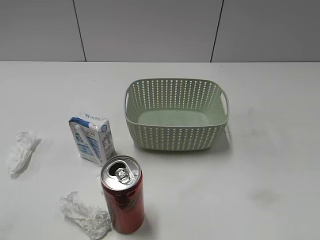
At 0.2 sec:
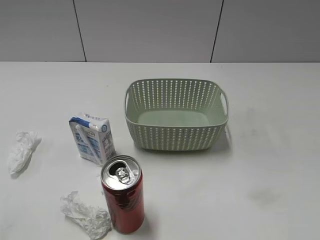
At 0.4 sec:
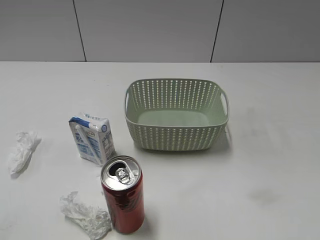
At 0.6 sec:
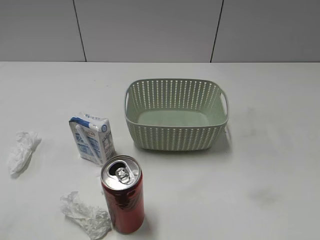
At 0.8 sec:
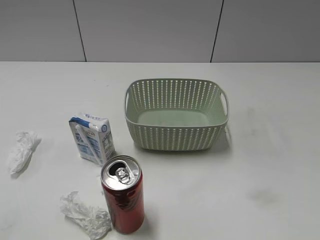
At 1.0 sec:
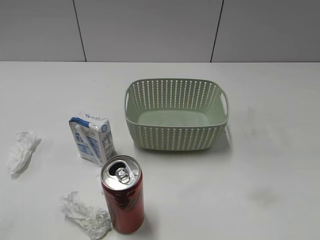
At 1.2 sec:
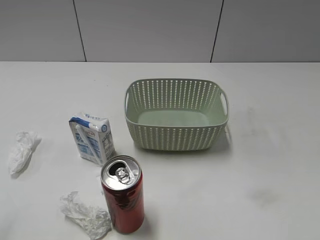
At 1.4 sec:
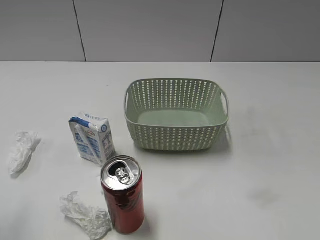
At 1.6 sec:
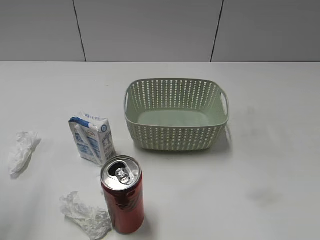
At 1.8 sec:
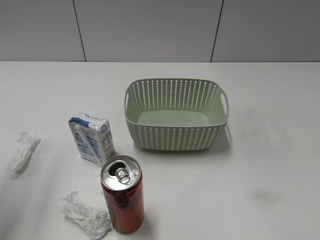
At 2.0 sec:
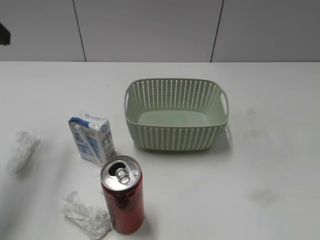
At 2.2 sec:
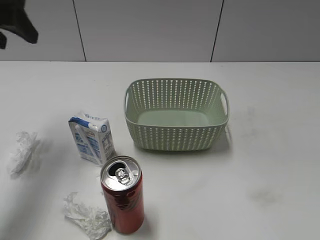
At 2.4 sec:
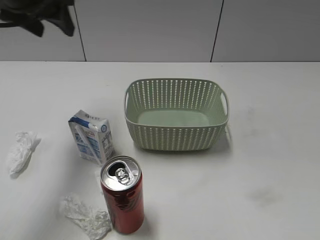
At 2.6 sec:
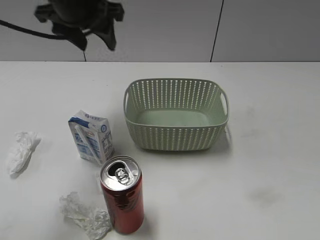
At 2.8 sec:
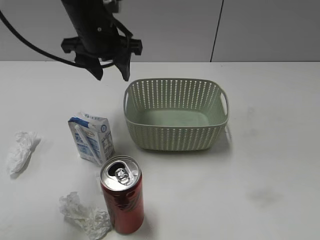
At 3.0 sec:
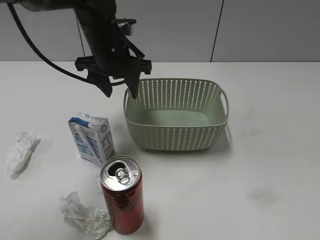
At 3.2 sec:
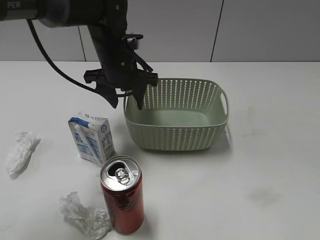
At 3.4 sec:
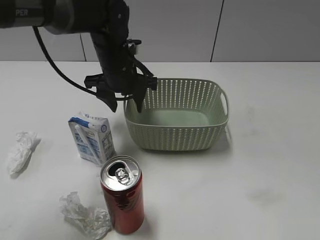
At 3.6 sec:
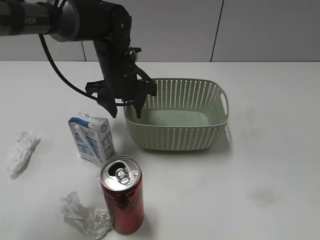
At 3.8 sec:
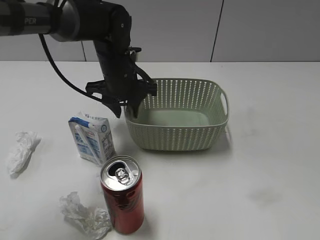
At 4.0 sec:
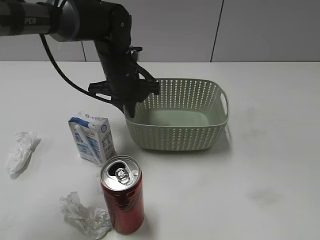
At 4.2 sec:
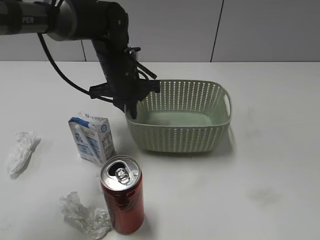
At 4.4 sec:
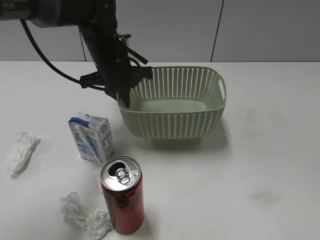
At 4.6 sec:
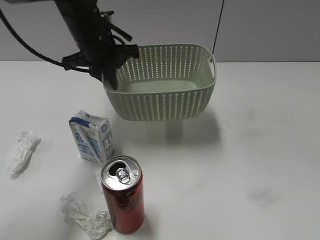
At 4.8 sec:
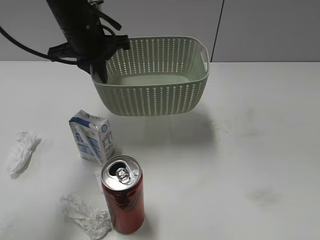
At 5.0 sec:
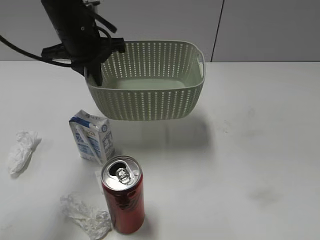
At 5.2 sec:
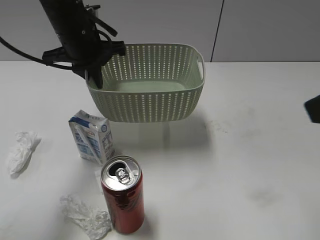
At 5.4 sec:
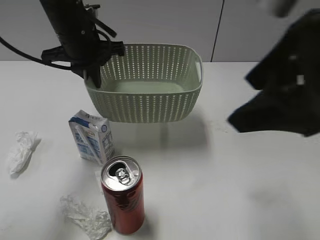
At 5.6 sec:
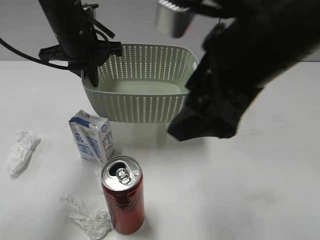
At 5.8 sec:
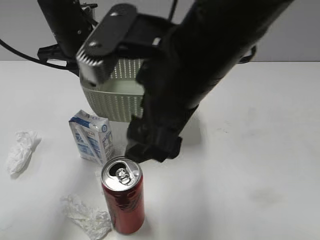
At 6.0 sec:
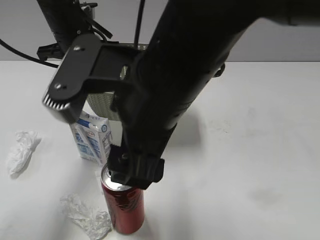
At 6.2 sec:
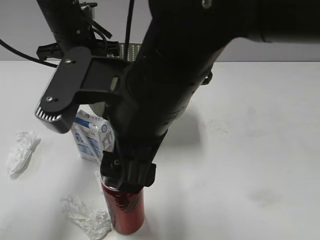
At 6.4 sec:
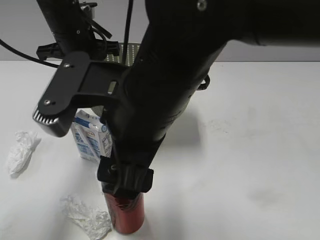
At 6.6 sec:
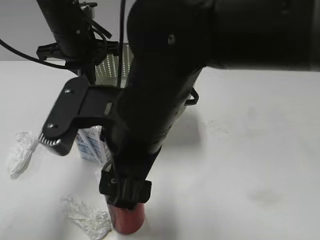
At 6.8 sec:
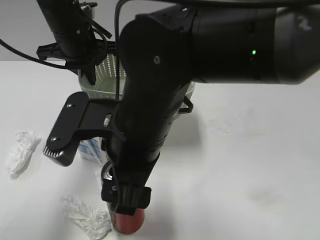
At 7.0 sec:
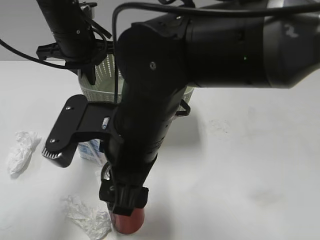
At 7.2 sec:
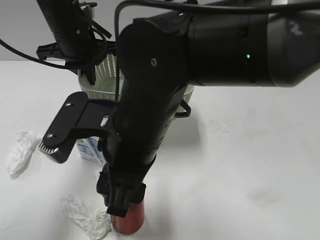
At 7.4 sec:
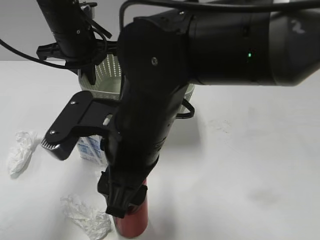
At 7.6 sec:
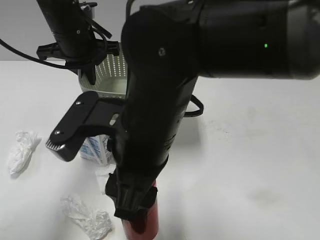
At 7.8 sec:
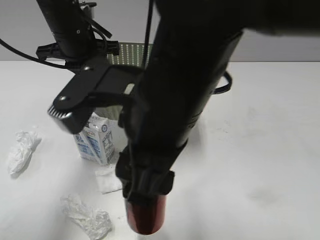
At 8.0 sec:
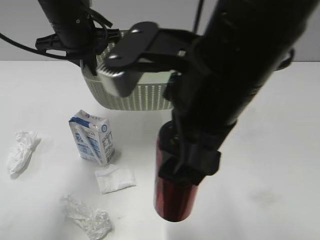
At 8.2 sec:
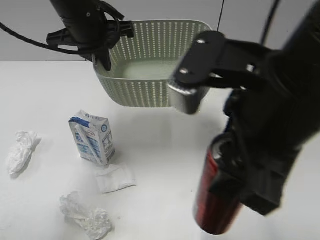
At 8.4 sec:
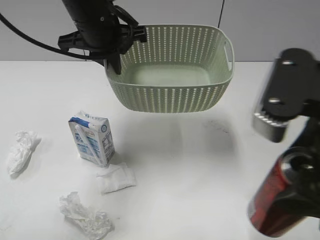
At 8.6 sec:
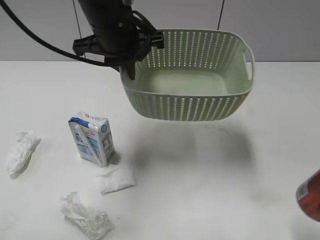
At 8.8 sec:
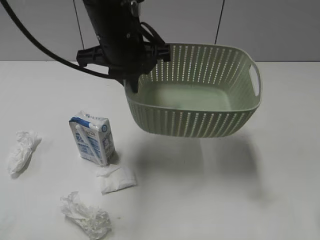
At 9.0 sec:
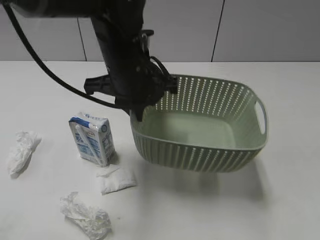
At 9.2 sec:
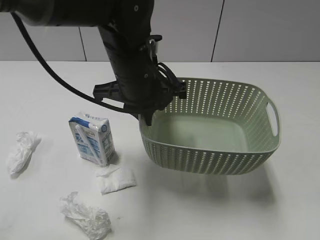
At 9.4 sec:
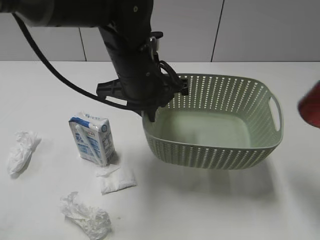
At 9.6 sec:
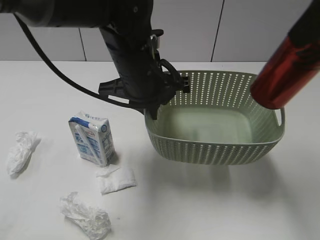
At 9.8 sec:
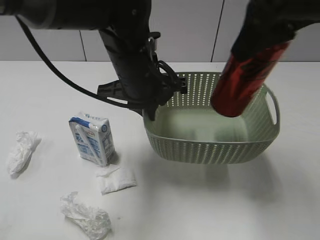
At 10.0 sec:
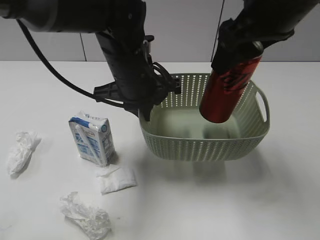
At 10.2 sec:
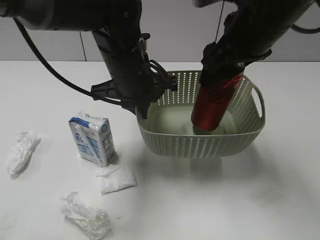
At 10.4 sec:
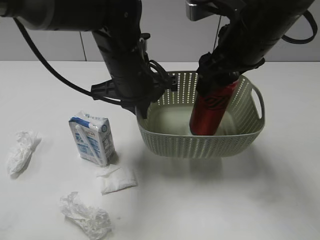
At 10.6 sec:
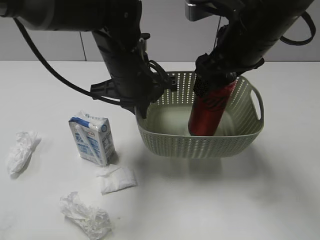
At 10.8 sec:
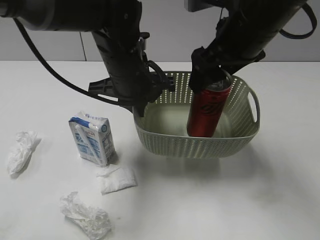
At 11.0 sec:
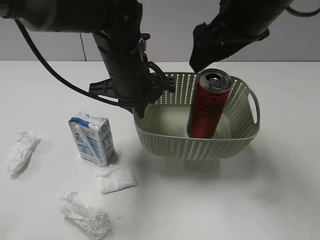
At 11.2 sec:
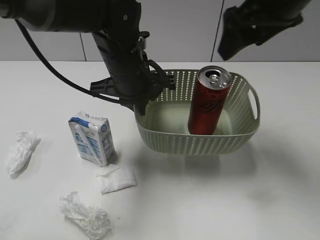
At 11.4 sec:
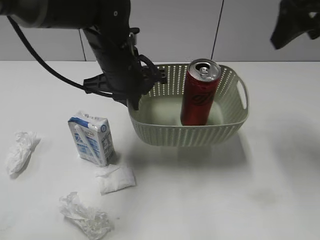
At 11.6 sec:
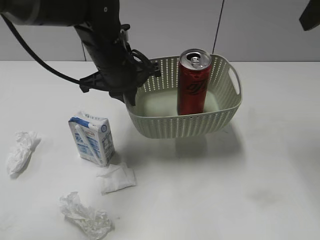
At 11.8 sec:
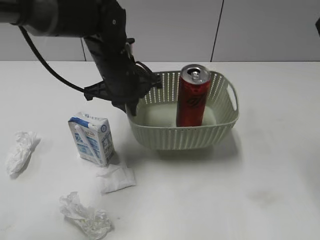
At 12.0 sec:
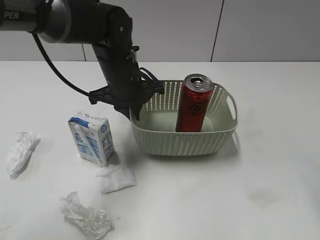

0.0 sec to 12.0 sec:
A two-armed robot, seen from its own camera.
Step, 2.0 sec to 4.0 sec: Grasp the basket with left gripper.
Step, 4.2 sec to 5.0 sec: Lift the basket with left gripper.
Step, 5.2 sec to 7.4 sec: Grasp the cola can with right gripper.
Step, 7.6 sec to 11.0 sec: Place the cola can in the basket with right gripper.
1.6 sec to 3.0 sec: The left gripper travels forward, to the right and downward by about 35 cm.
3.0 sec to 4.4 sec: The left gripper closes its fingers.
4.4 sec to 6.0 sec: The left gripper is displaced upward and to the left by roughly 10 cm; the right gripper goes some 35 cm to the left and forward, and opens.
6.0 sec to 7.6 sec: The right gripper goes approximately 5 cm downward, and closes up.
7.6 sec to 9.0 sec: The right gripper shifts roughly 25 cm to the right. Meanwhile the left gripper heads to the right and backward, covering roughly 15 cm.
9.0 sec to 10.4 sec: The right gripper heads forward and to the left, covering approximately 20 cm.
10.4 sec to 12.0 sec: The right gripper travels to the right, backward and upward by about 20 cm, and opens up. Meanwhile the left gripper ends up about 5 cm from where it was.

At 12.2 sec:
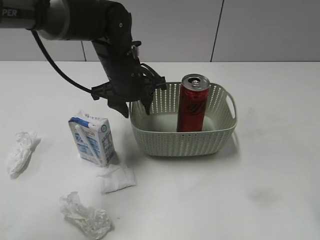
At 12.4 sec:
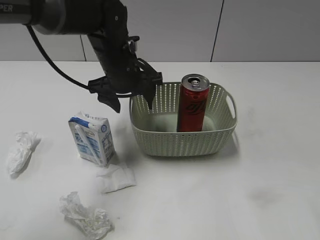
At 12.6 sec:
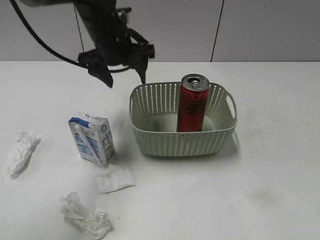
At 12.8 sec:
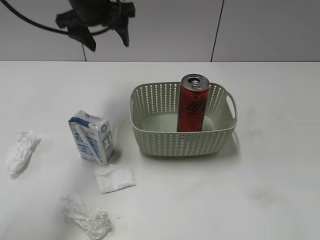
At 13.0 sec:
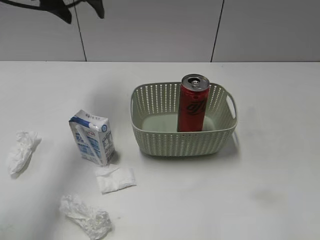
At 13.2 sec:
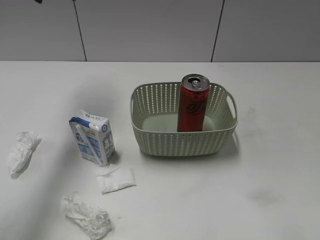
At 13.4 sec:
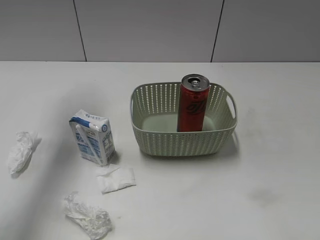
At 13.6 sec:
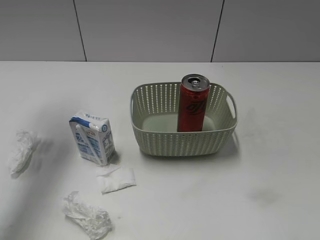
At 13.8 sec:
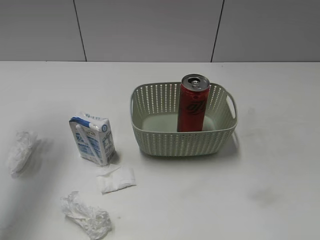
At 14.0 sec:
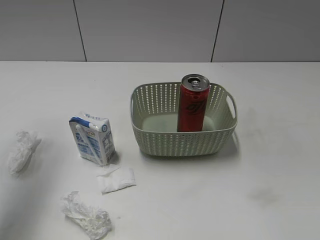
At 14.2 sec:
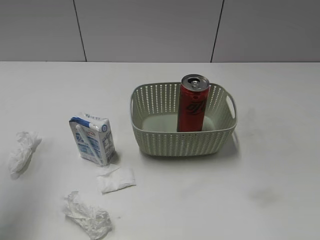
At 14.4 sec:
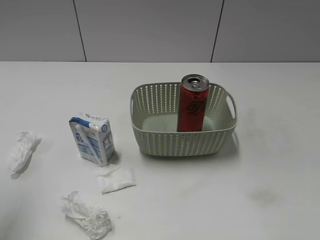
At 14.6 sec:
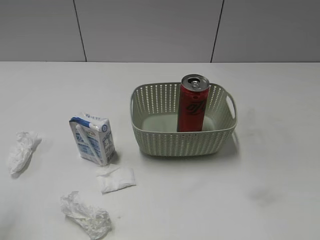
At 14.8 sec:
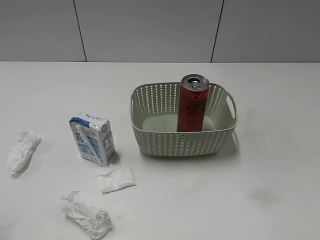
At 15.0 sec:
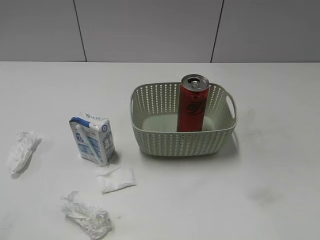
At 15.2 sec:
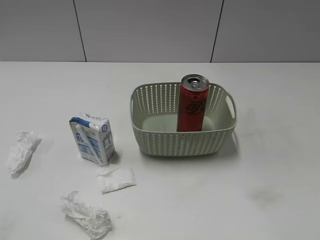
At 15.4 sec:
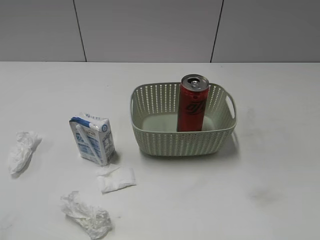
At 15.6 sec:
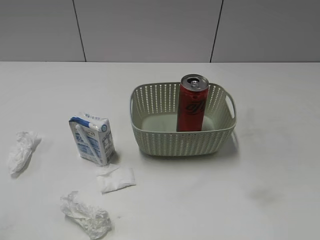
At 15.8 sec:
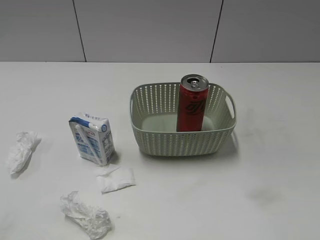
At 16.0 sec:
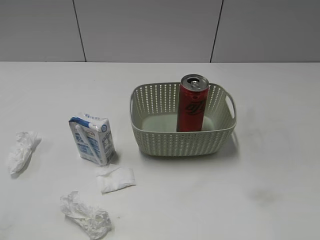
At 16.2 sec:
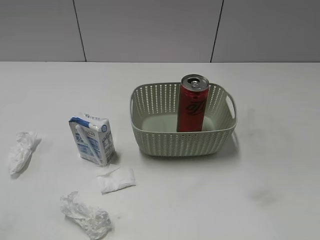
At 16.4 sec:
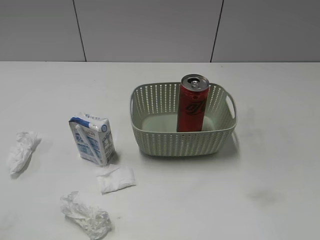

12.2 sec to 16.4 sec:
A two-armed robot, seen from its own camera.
12.2 sec to 13.6 sec: The right gripper goes roughly 15 cm backward and downward; the left gripper moves upward and to the left, about 30 cm, and opens.
13.6 sec to 15.0 sec: The left gripper shifts about 35 cm backward.

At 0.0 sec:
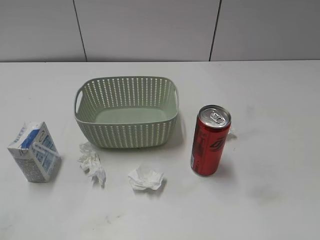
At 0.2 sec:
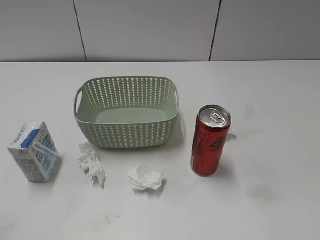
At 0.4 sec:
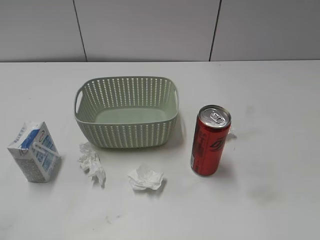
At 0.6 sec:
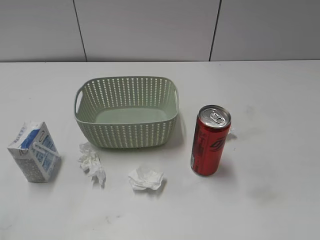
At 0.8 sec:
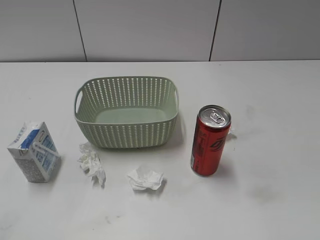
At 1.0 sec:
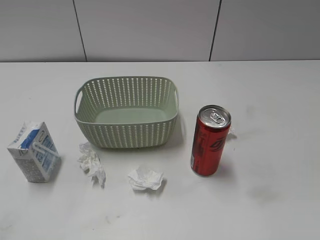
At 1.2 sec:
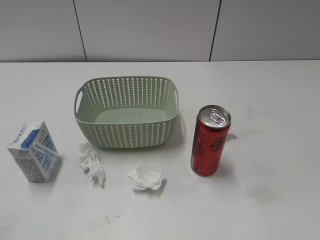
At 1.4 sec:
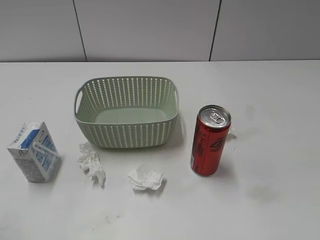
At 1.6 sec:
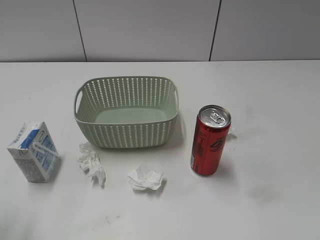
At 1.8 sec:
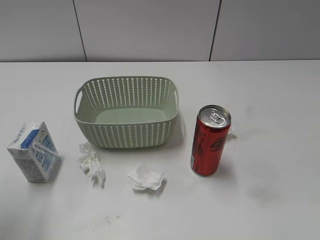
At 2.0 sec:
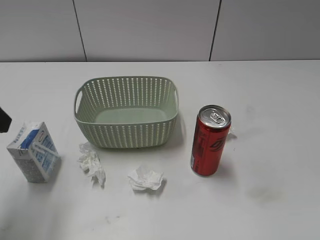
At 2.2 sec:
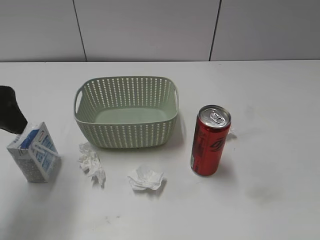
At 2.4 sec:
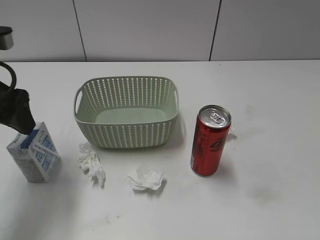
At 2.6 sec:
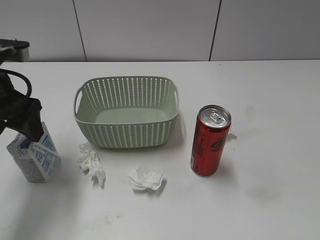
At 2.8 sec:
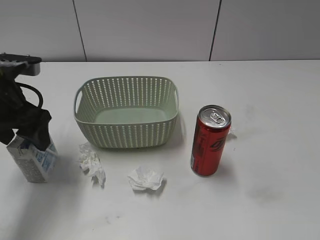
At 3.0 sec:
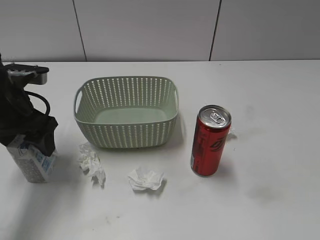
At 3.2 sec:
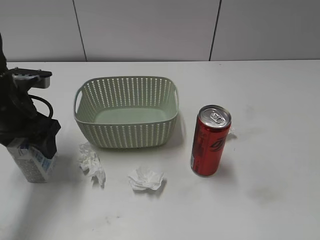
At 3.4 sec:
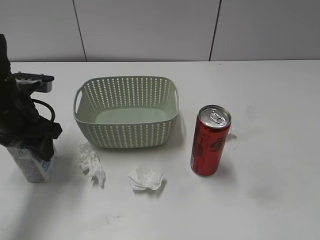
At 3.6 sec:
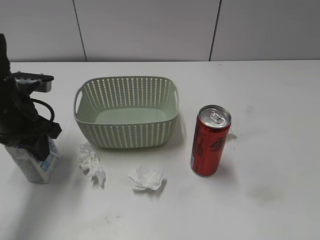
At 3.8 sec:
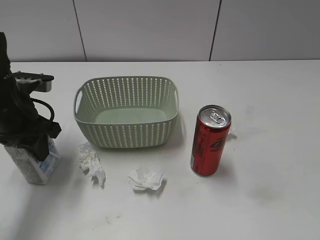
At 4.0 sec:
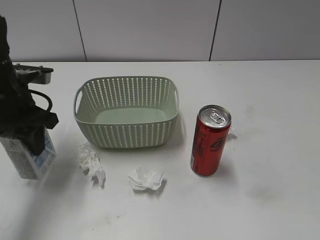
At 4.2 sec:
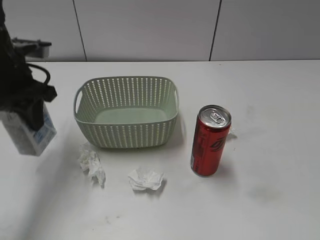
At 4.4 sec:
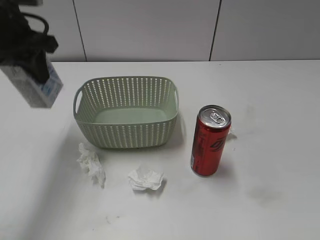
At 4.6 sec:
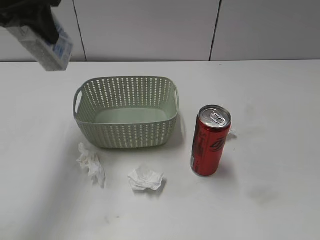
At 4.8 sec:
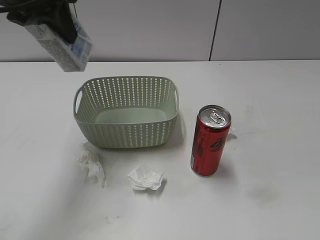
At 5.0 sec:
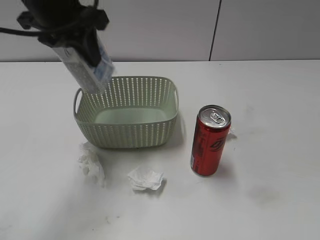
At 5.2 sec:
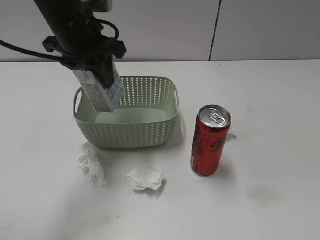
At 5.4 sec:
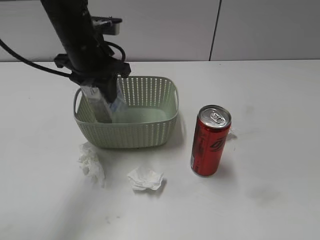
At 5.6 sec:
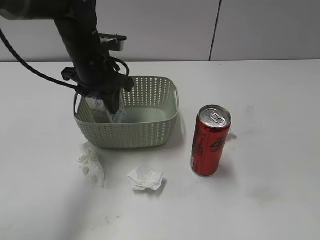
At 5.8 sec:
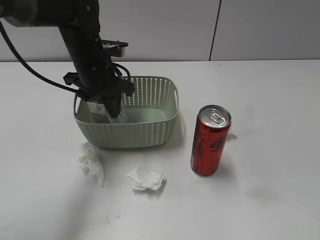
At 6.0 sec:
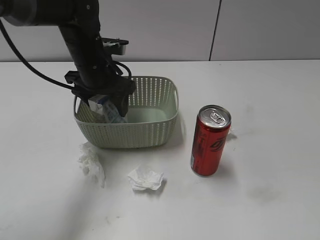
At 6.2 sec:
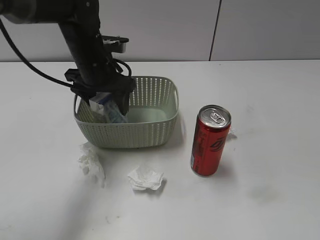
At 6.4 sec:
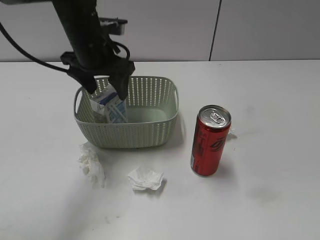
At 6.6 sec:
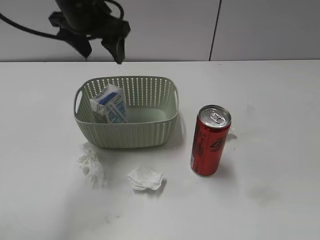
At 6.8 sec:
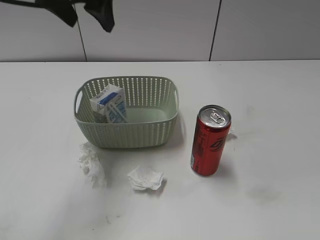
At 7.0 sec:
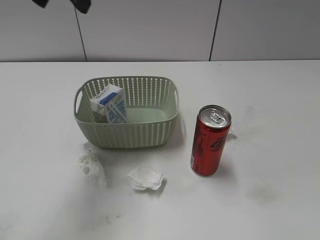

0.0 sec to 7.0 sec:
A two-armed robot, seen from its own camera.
Step, 2.0 sec to 3.6 sec: Grasp the milk with left gripper.
Step, 3.8 sec to 6.6 sec: Place the milk in the basket with left gripper.
1.4 sec to 2.8 sec: The left gripper goes roughly 20 cm forward.
2.8 sec to 4.2 sec: The left gripper closes up.
4.2 sec to 5.6 sec: The left gripper goes roughly 15 cm to the right and forward, and moves about 15 cm upward and comes back.
5.6 sec to 7.0 sec: The left gripper heads upward, covering some 20 cm, and opens.
